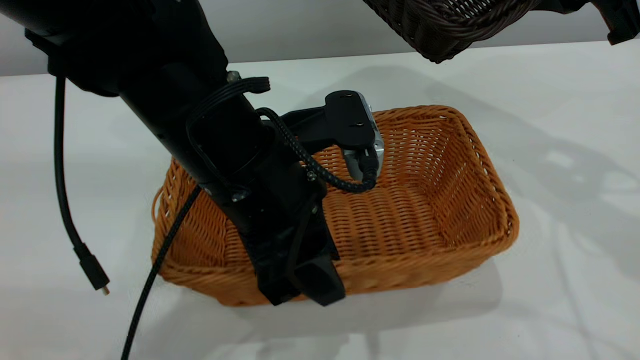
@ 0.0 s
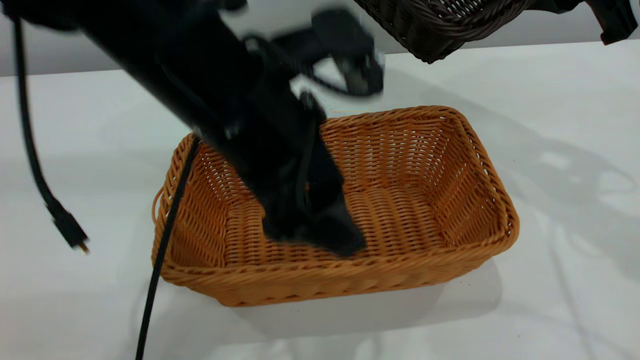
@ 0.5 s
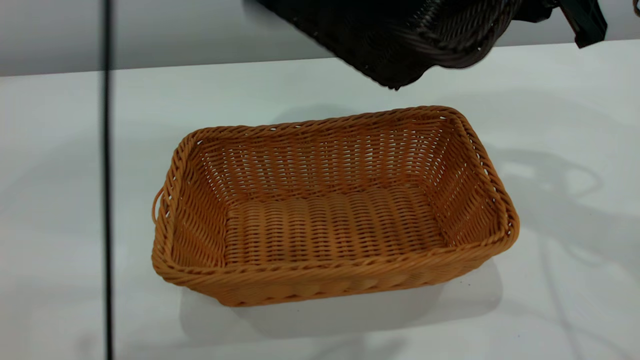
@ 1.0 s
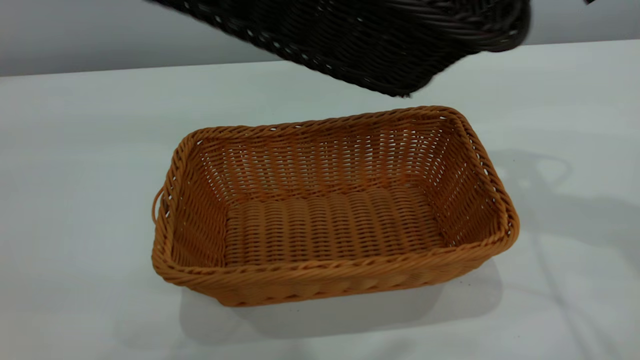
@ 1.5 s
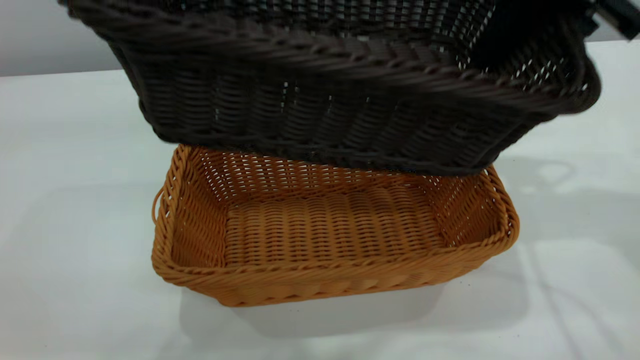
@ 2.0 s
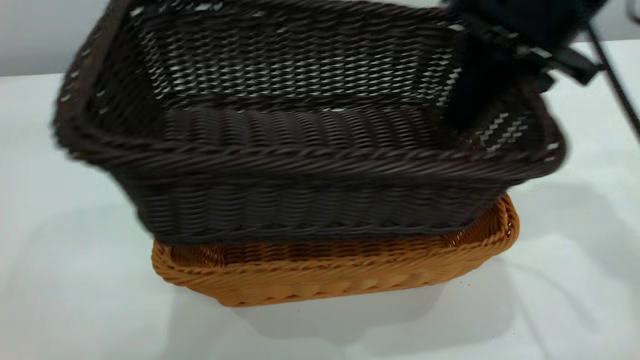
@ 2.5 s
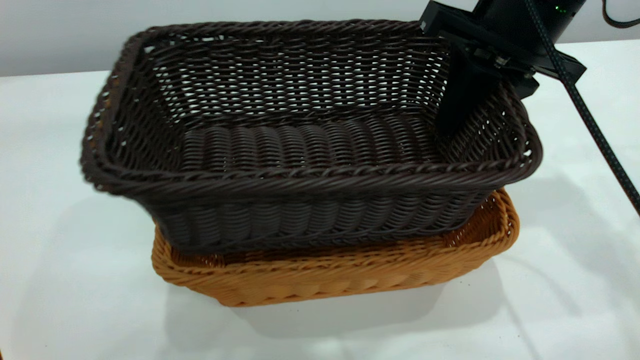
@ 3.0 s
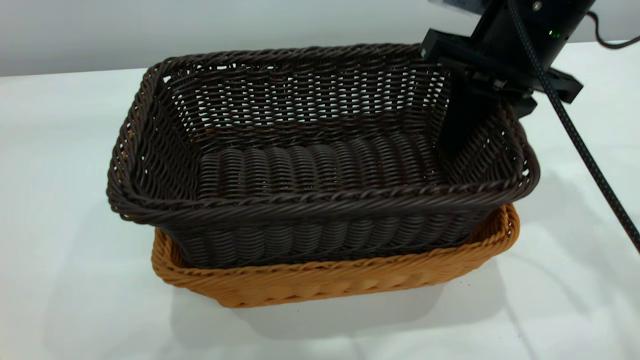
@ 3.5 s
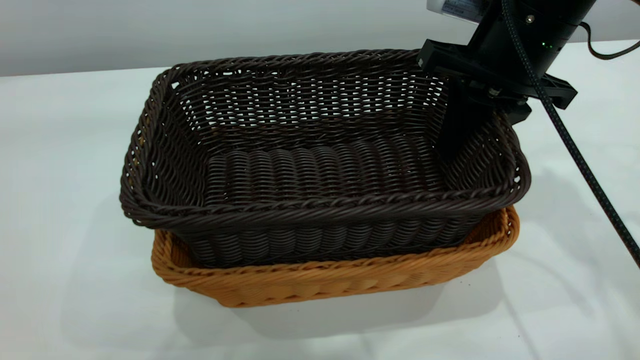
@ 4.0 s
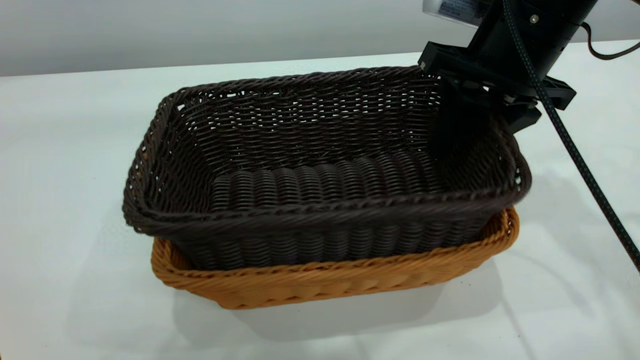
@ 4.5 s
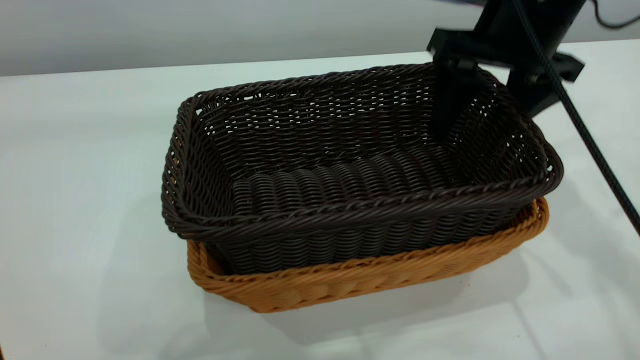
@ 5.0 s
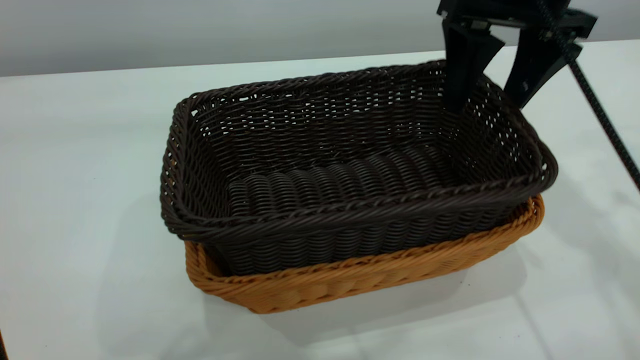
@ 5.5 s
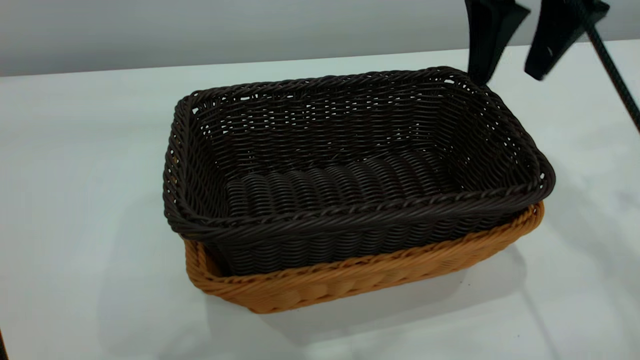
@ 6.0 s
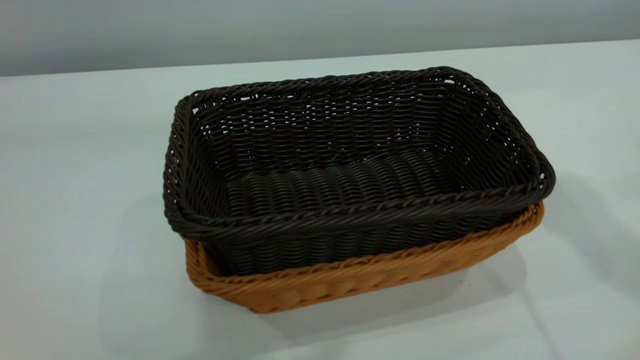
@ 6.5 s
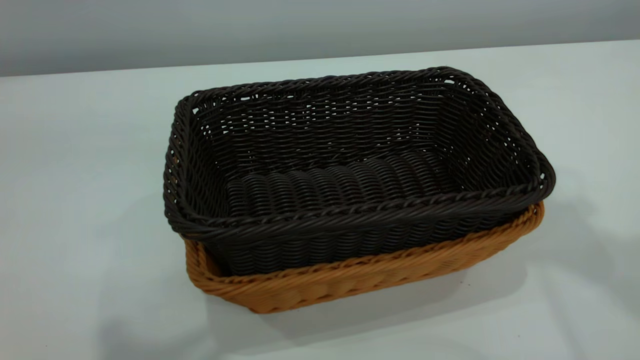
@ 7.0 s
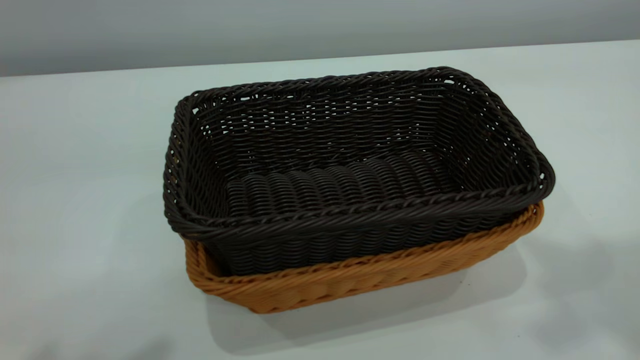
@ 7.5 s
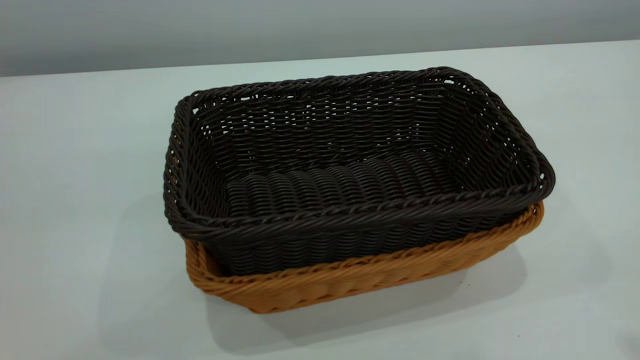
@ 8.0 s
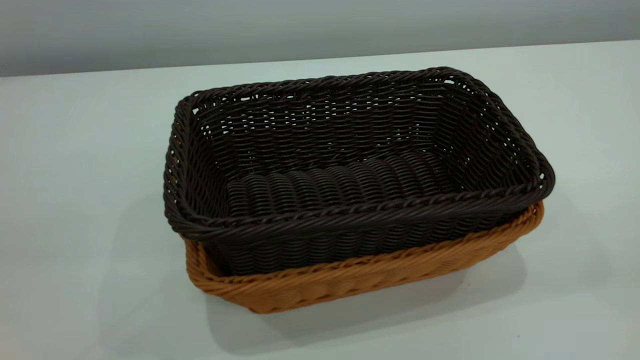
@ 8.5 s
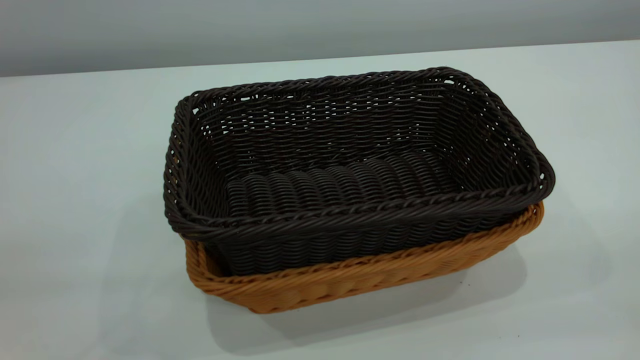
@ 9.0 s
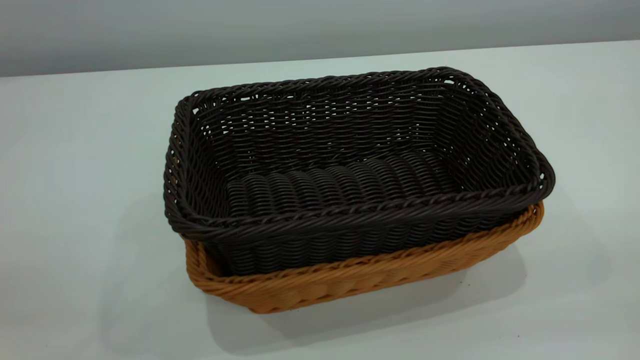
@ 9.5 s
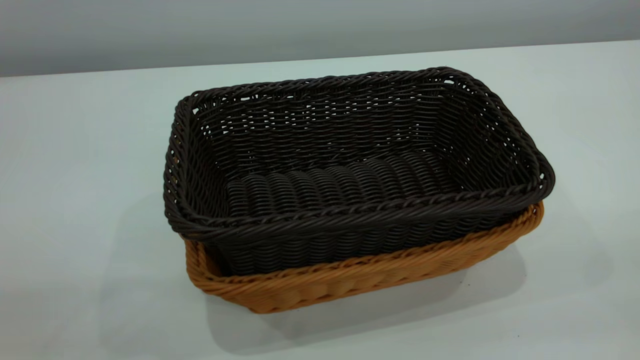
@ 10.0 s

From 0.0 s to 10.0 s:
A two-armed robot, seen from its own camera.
Task of the whole recording: the left gripper grasp the brown basket and place it in the center of the table, the right gripper grasp the black basket and place it inside the brown one.
Step, from 1.0 s to 5.5 s: Place the dark basket on top of the light basket.
From 0.0 s to 2.0 s: The left gripper is displaced upward by some 35 cm, and opens up.
From 2.0 s to 4.0 s: The right gripper goes approximately 10 cm downward.
From 4.0 s to 6.0 s: The right gripper is displaced upward by roughly 10 cm, and opens.
From 6.0 s to 8.0 s: The right gripper travels backward and upward by about 35 cm, and closes its fingers.
